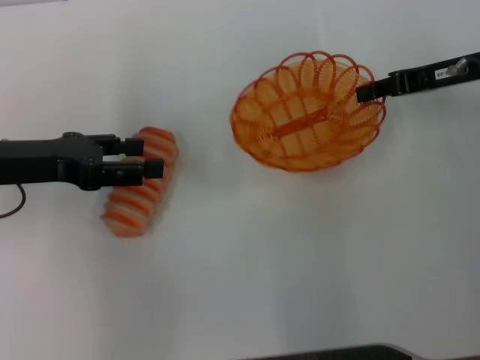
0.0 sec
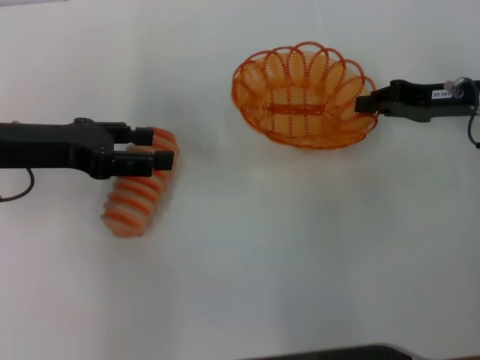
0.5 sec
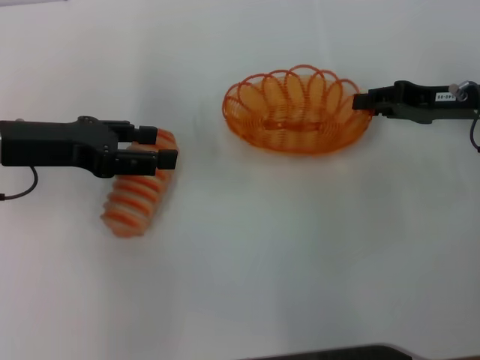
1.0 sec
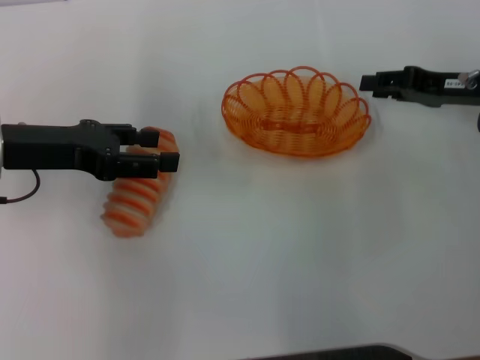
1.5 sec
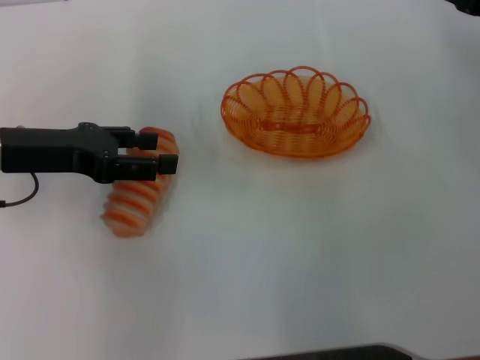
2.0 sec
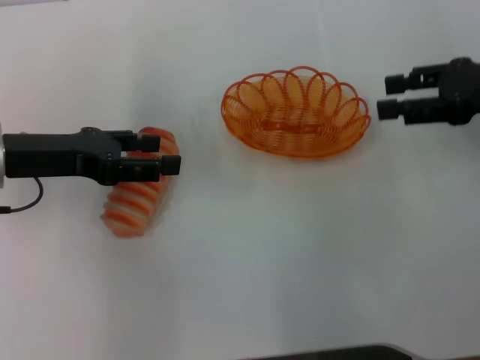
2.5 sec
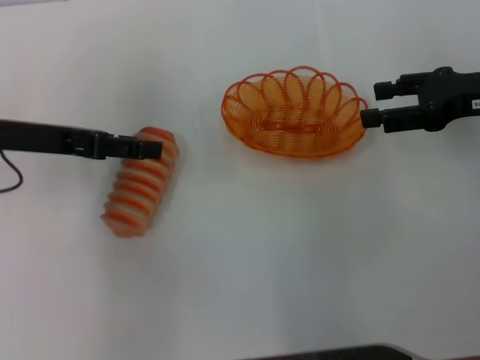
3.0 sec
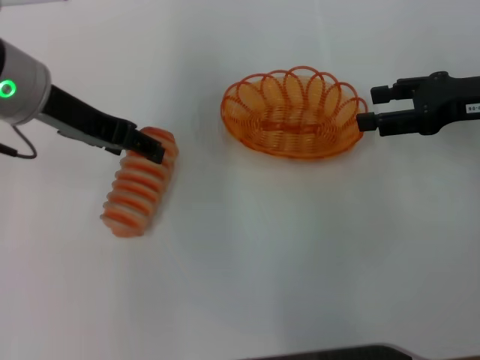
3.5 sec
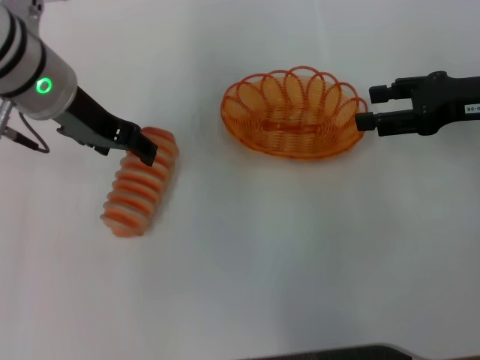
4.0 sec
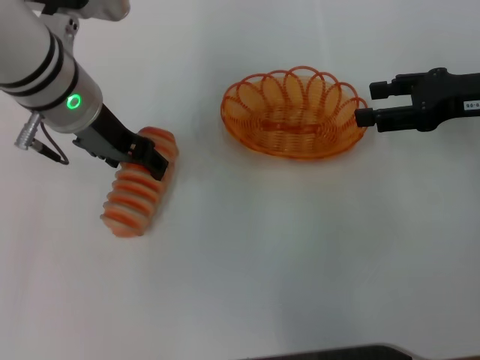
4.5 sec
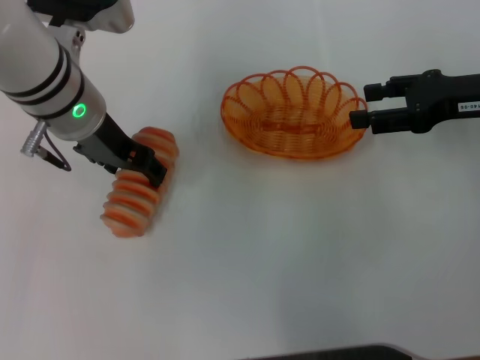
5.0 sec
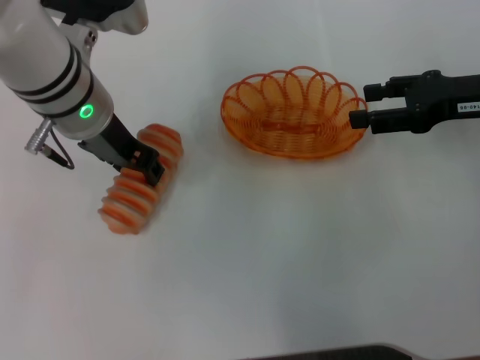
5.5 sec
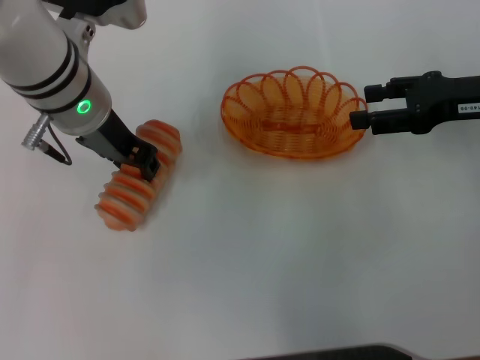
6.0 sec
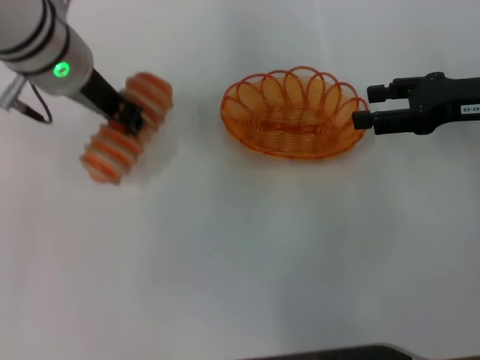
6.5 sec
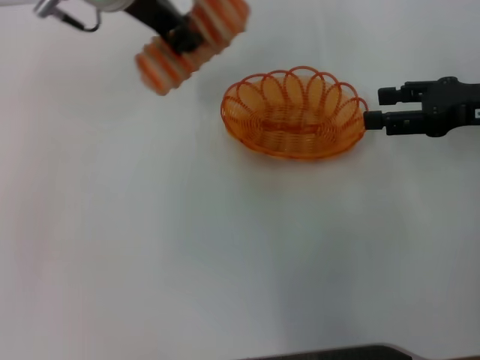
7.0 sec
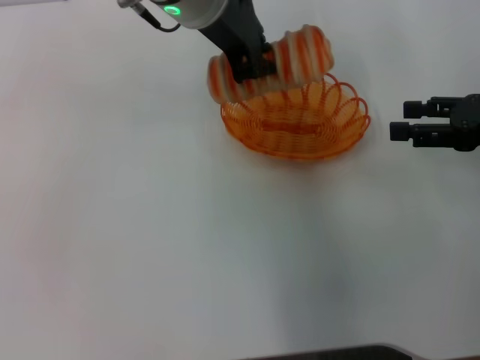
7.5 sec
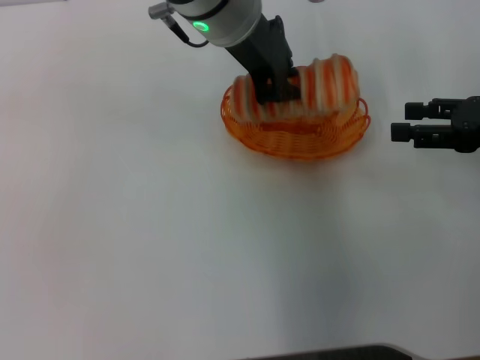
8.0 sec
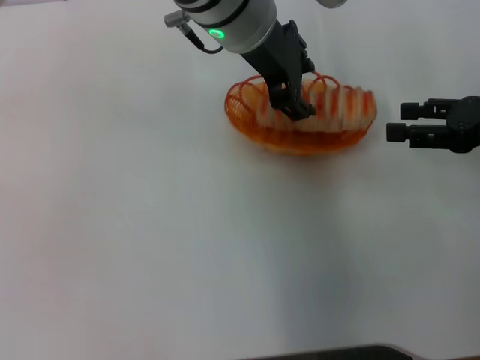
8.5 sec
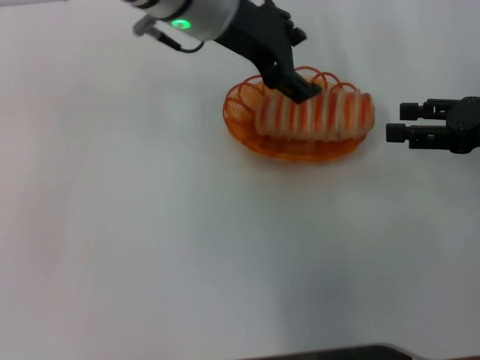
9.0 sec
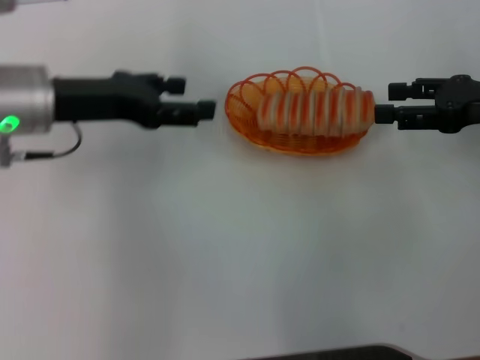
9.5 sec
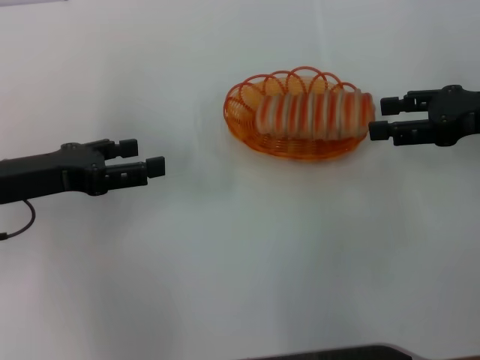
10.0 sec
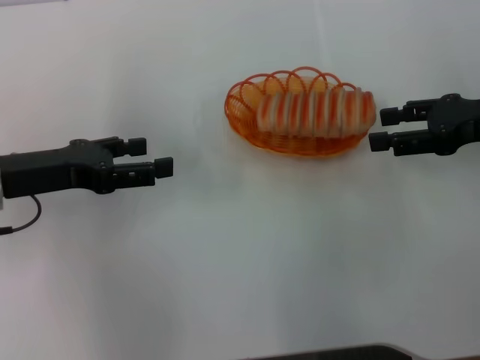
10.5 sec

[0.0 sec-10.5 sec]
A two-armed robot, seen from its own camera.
Step, 0.0 sec to 1.5 sec: Place the basket in the center of view with the right gripper.
Step, 2.0 sec to 6.5 sec: Pick up the long bread with the left gripper.
Step, 7.0 sec to 9.0 sec: Place the long bread into the basket with the left gripper.
0.0 sec to 2.0 sec: The right gripper changes place by some 5 cm, and opens.
2.0 sec to 4.0 sec: The right gripper opens. Meanwhile the left gripper is displaced to the right and upward by approximately 10 cm.
4.0 sec to 6.5 sec: The left gripper closes up.
6.5 sec to 8.5 sec: The left gripper shifts some 15 cm to the right.
8.5 sec to 10.5 sec: The left gripper heads to the left and backward, covering roughly 25 cm, and opens.
